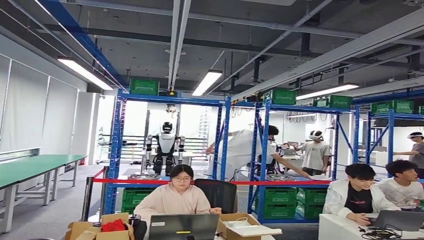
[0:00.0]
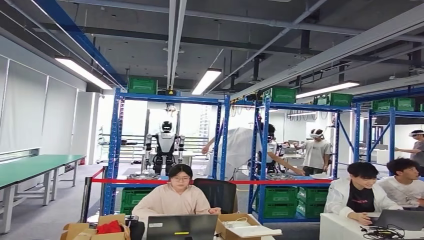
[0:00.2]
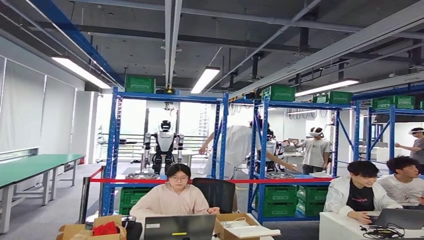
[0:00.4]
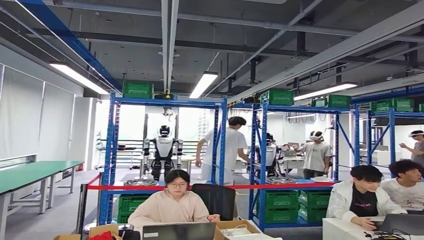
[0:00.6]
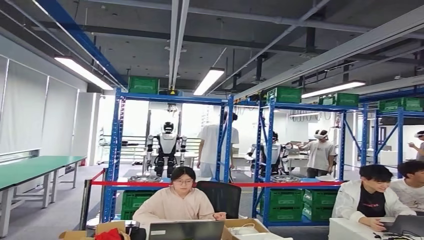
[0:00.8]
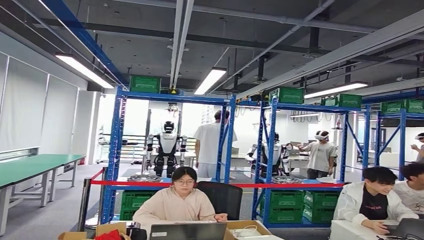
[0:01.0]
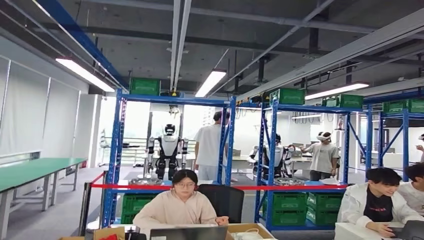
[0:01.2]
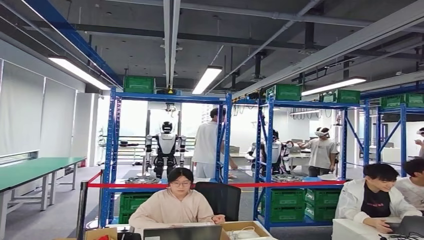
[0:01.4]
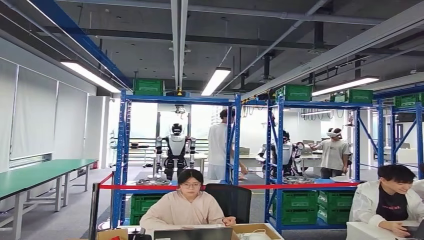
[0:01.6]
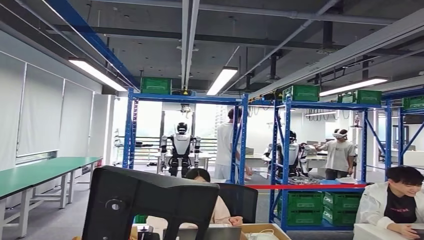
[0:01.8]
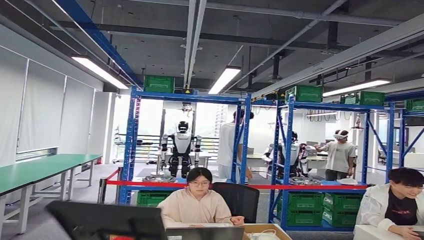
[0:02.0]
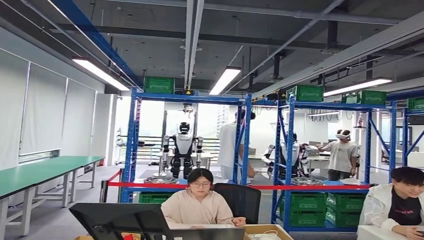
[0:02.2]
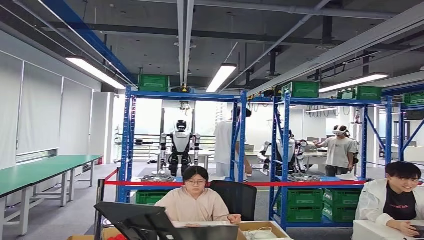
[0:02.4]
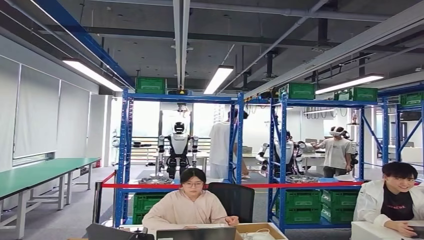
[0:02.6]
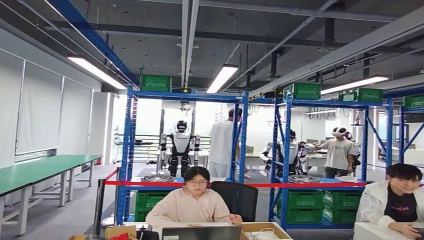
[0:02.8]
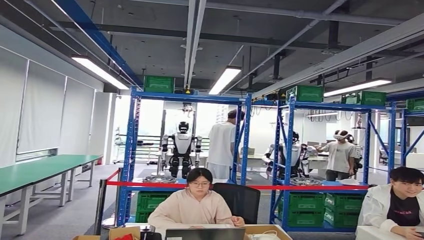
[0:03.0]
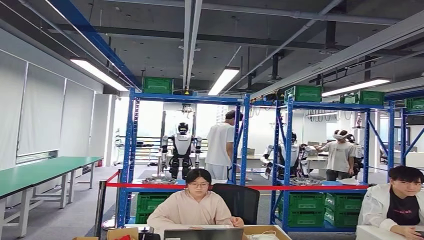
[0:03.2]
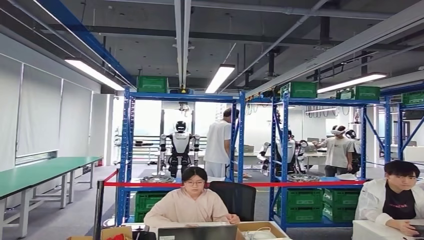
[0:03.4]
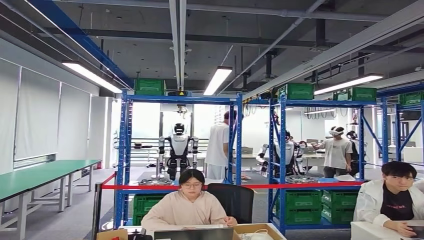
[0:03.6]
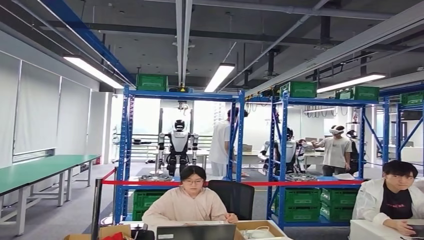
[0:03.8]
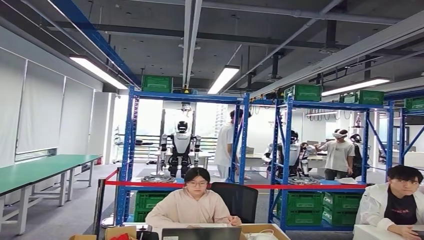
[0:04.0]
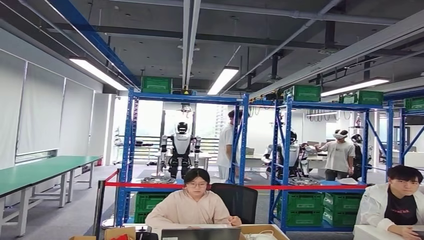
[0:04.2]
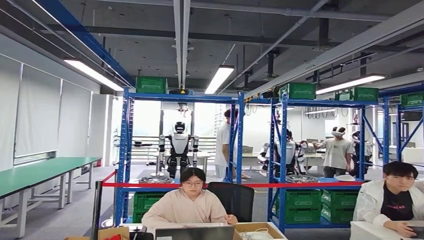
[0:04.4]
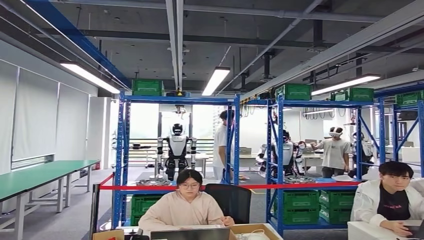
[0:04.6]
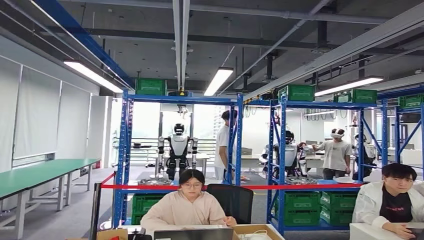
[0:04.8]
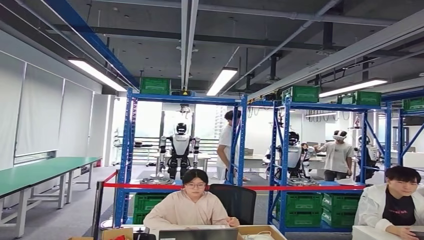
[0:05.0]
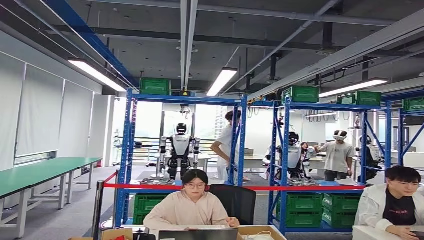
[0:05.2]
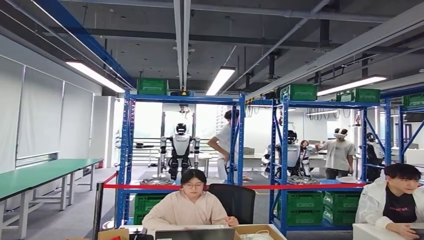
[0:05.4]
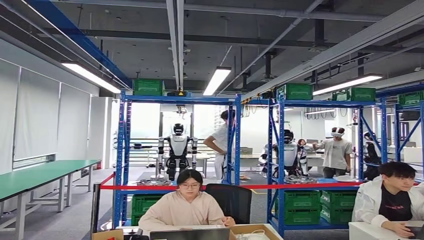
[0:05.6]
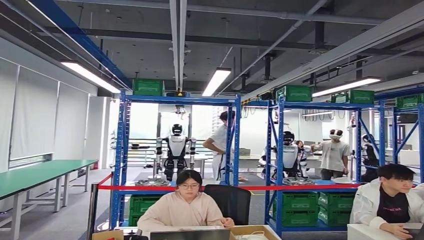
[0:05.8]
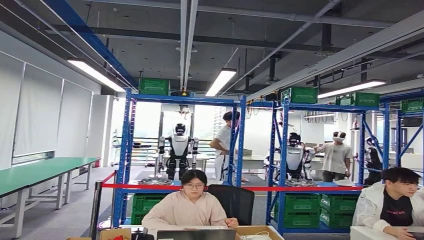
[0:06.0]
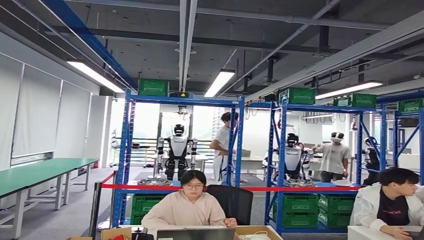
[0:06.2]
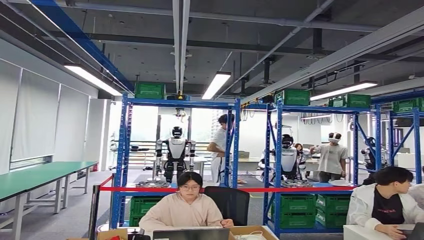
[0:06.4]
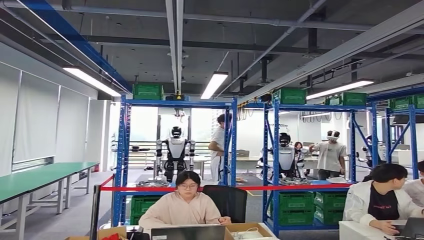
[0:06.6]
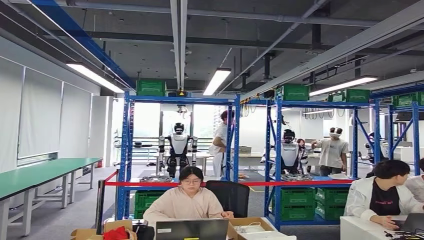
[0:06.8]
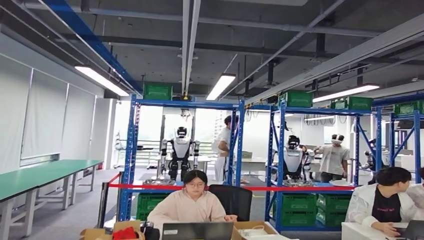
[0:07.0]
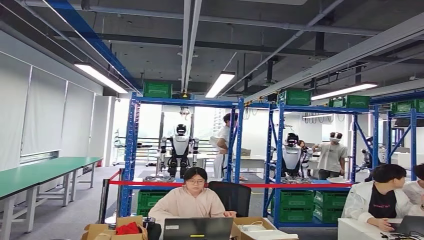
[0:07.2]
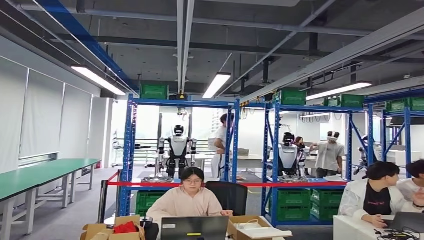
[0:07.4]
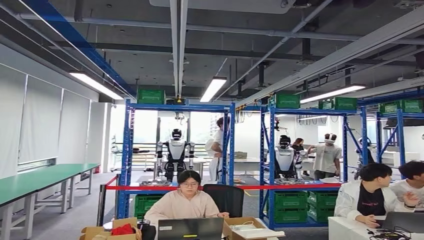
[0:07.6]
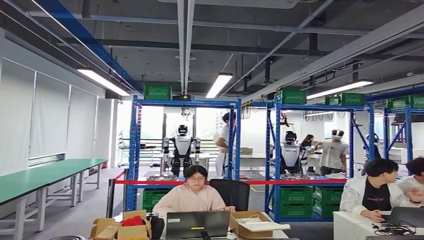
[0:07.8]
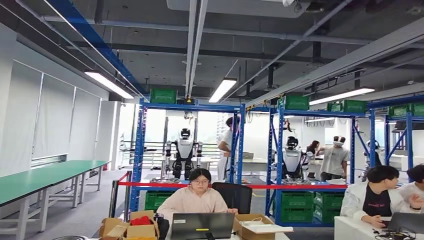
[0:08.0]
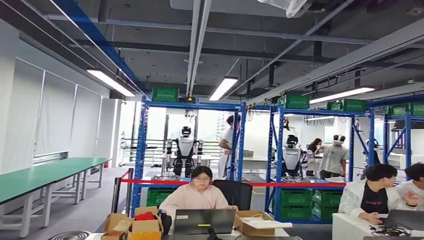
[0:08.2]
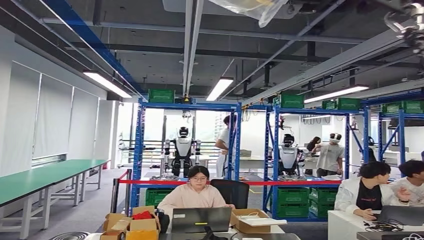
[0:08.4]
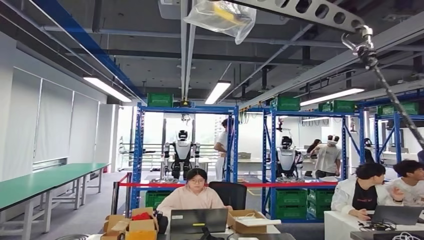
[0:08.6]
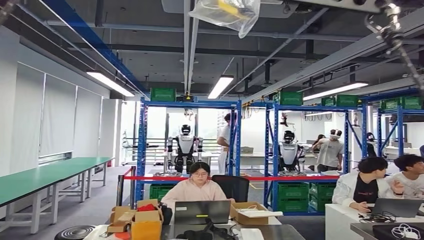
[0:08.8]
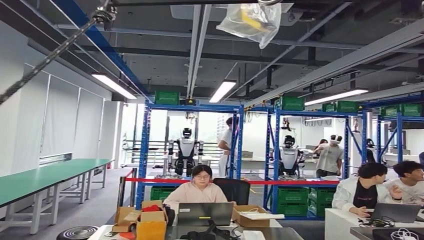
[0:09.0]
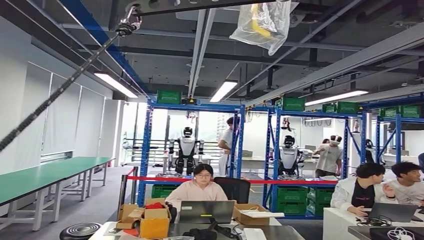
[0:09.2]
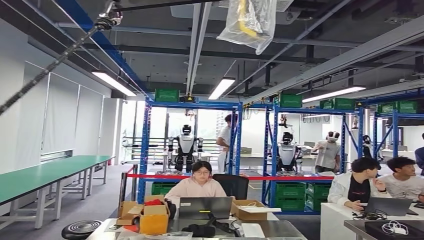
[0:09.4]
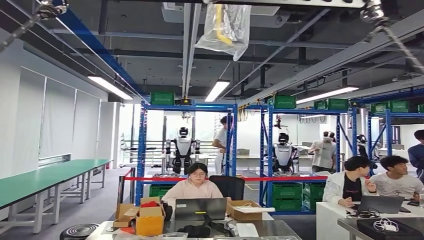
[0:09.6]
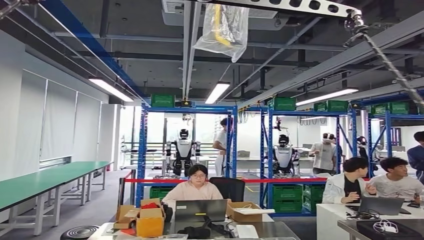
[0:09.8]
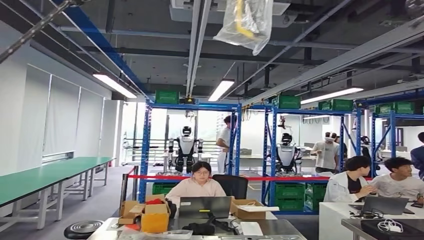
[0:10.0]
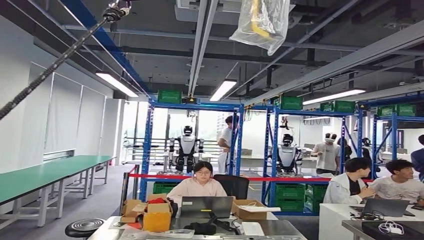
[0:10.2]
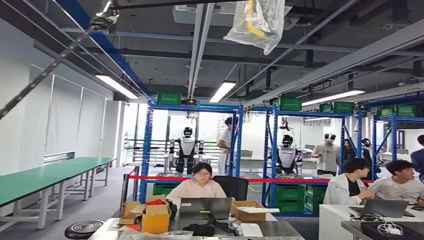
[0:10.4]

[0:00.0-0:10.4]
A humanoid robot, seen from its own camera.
Step, 0:02.2 to 0:06.2: Insert the small component into the corresponding slot on the workbench.
Step, 0:06.4 to 0:10.4: Move to the initial position at the workbench.
